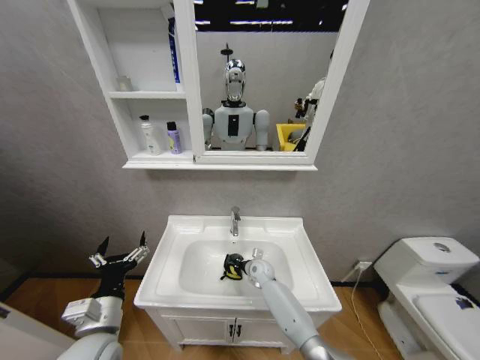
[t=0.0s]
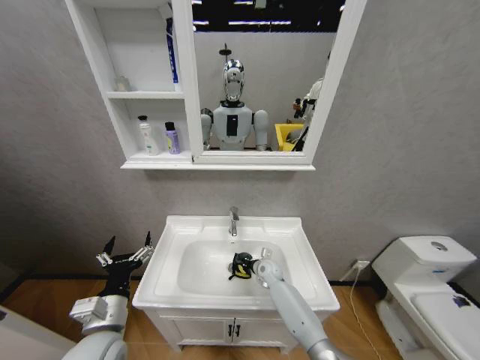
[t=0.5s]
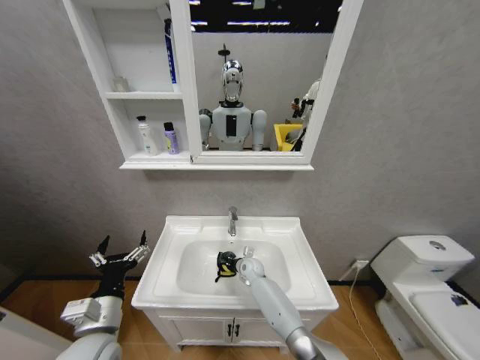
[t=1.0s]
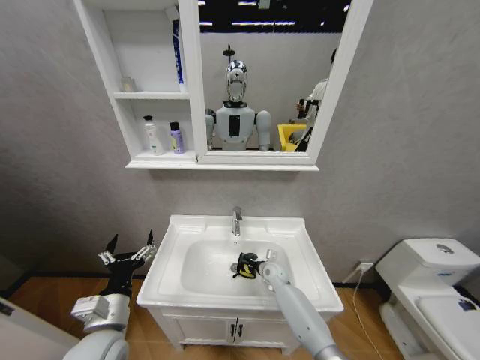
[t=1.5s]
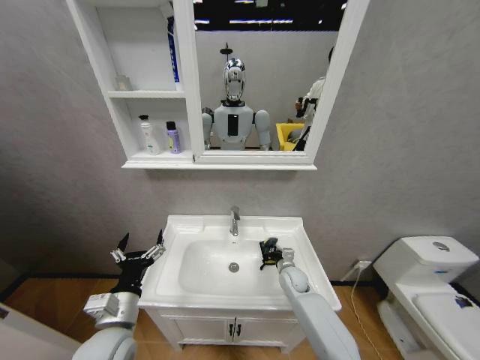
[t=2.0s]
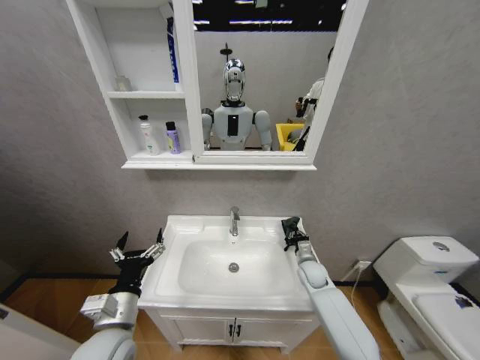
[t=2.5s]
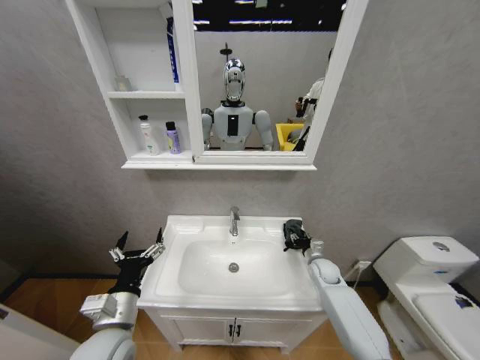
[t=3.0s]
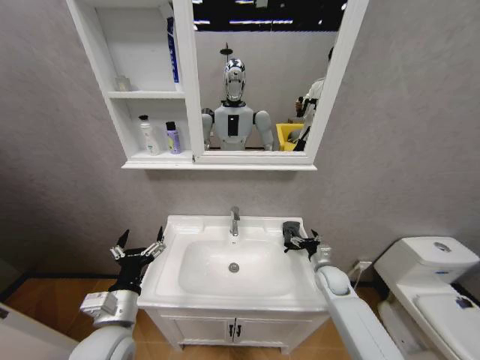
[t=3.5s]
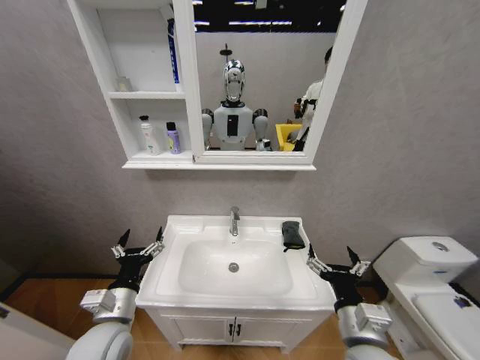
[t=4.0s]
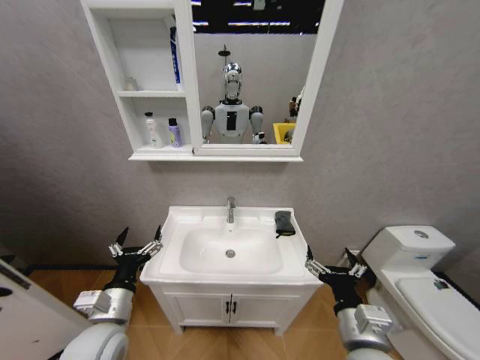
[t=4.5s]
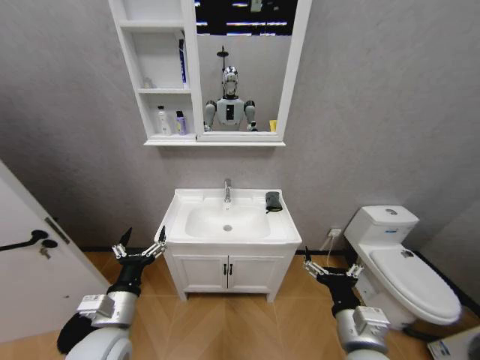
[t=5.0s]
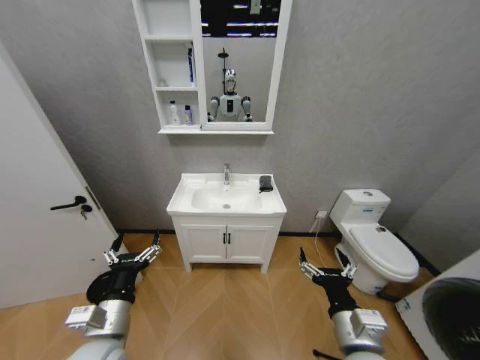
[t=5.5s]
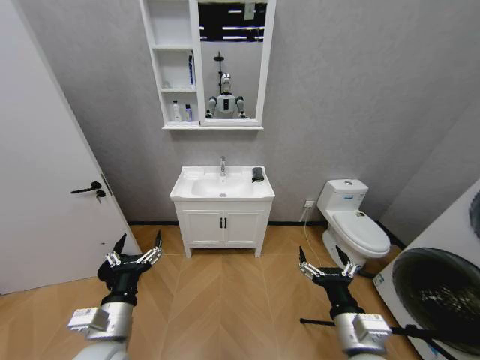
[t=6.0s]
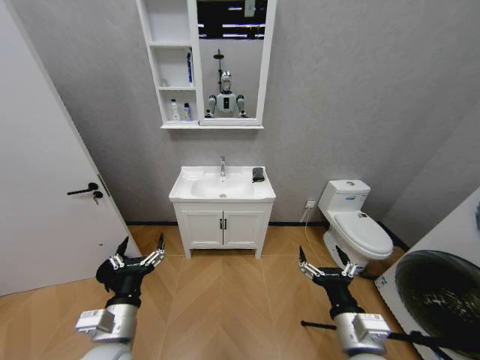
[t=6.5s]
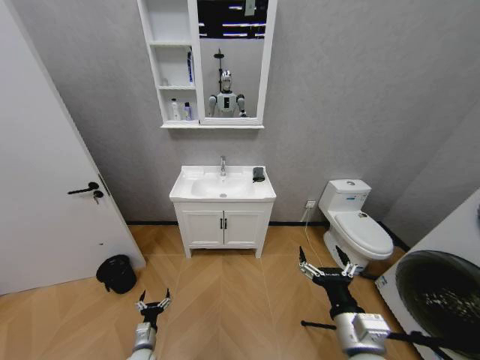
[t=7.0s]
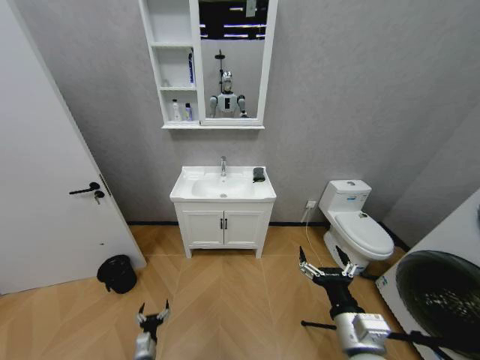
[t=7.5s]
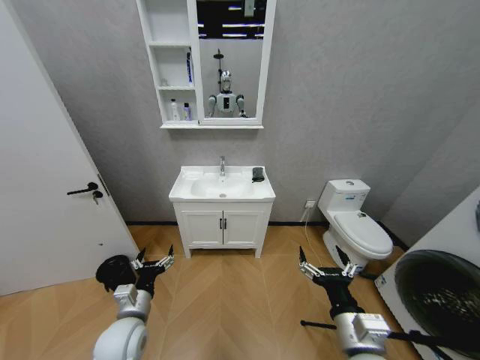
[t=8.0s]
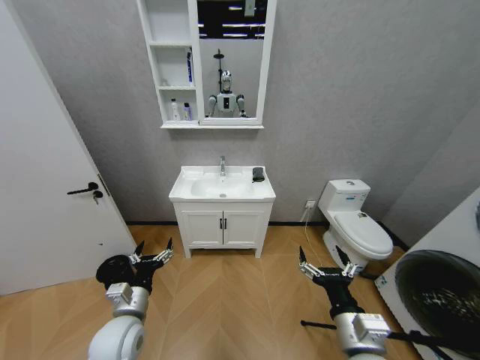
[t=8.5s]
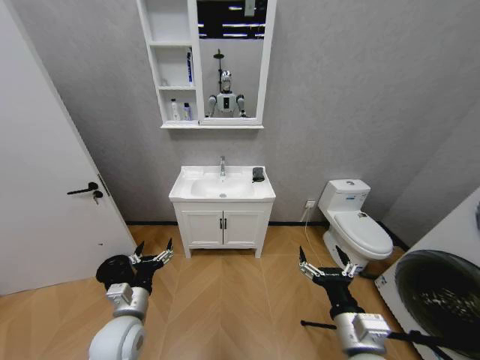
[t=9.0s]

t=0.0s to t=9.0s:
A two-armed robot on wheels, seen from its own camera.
Task of the whole recording: Move facial cleanser and shampoo from washbasin to cabinet, then wipe washbasin with towel.
t=0.0s to t=2.0s: The right gripper is displaced to the right by about 10 cm.
t=2.0s to t=4.5s: The right gripper goes about 35 cm backward and upward, and opens up.
t=4.5s to t=7.0s: The left gripper moves downward, roughly 30 cm.
t=7.0s to t=9.0s: The left gripper travels upward by roughly 25 cm.
